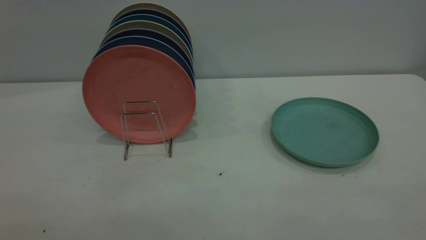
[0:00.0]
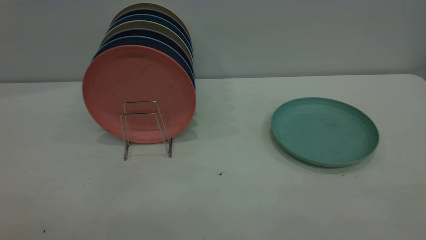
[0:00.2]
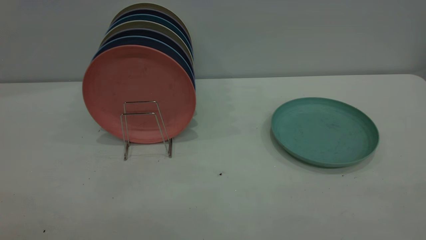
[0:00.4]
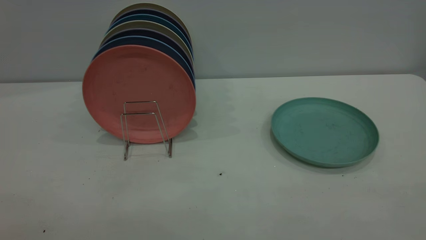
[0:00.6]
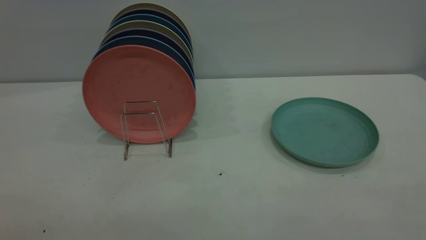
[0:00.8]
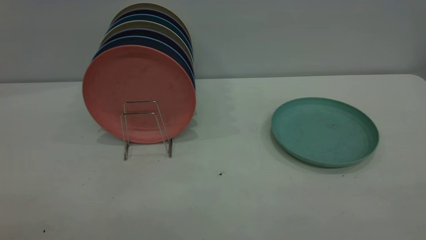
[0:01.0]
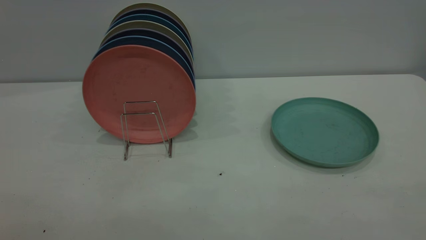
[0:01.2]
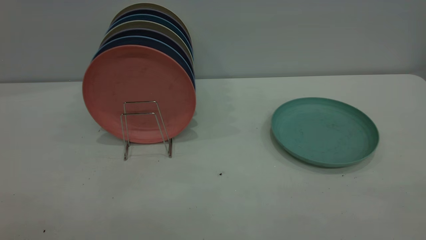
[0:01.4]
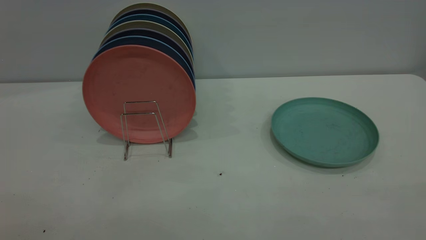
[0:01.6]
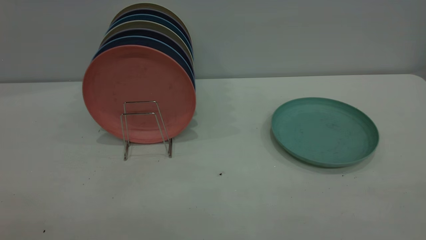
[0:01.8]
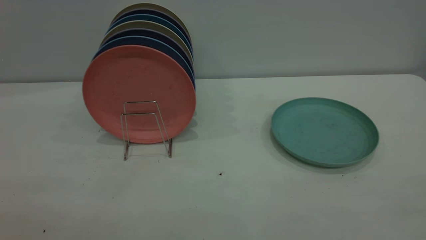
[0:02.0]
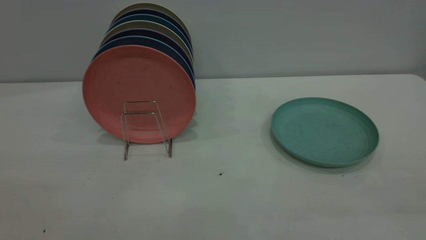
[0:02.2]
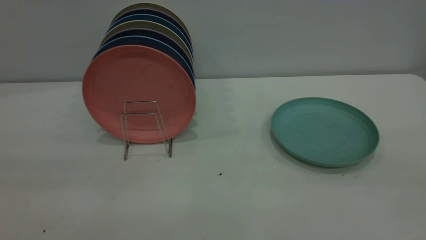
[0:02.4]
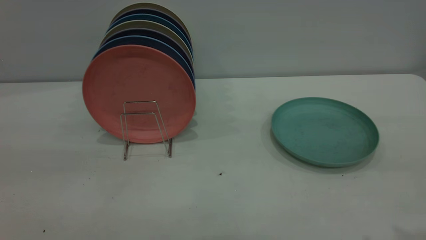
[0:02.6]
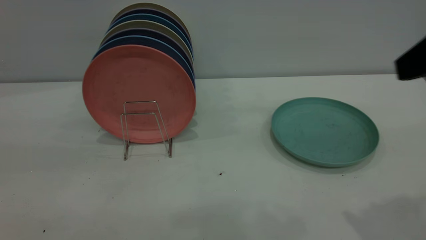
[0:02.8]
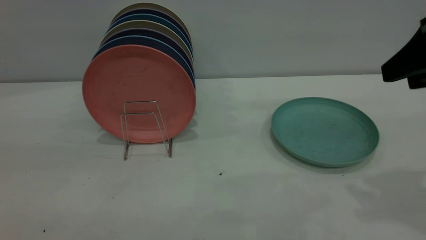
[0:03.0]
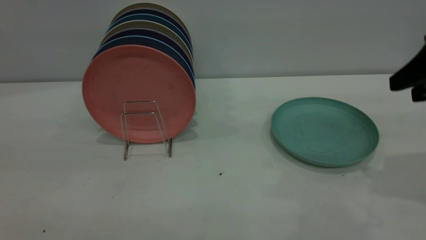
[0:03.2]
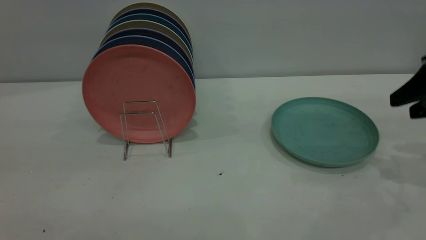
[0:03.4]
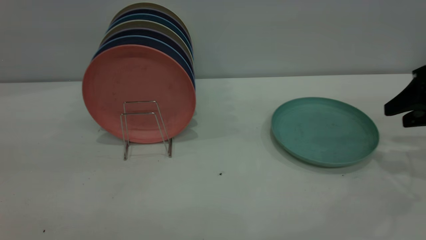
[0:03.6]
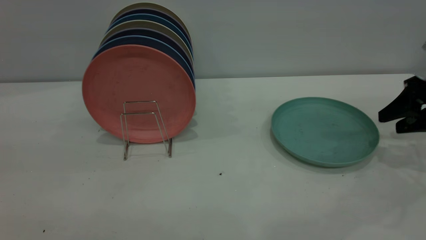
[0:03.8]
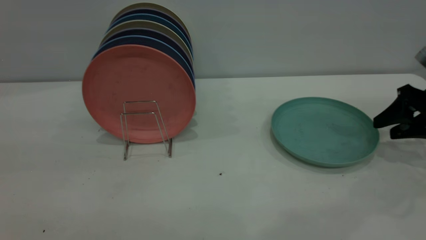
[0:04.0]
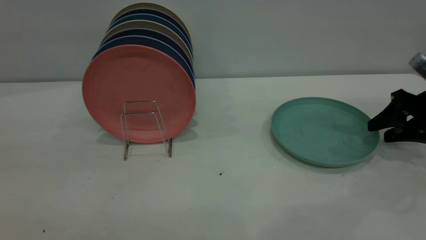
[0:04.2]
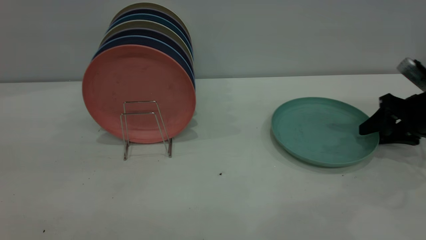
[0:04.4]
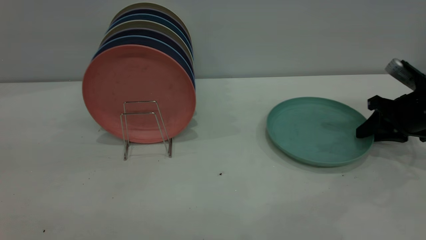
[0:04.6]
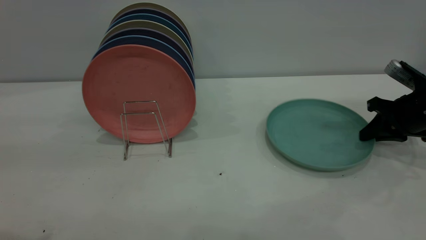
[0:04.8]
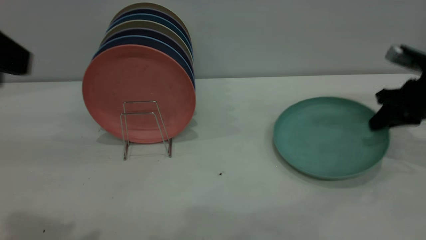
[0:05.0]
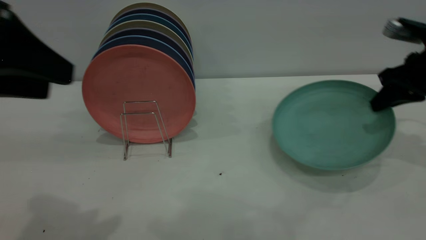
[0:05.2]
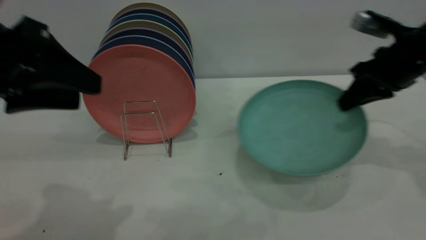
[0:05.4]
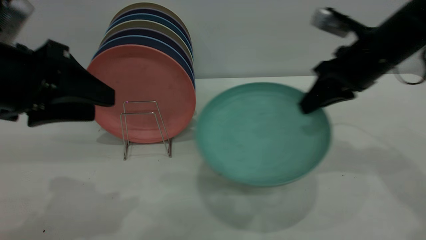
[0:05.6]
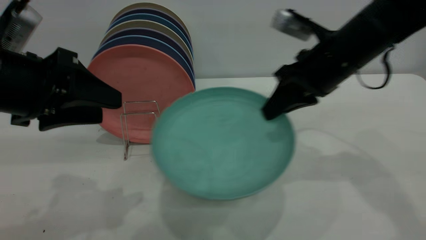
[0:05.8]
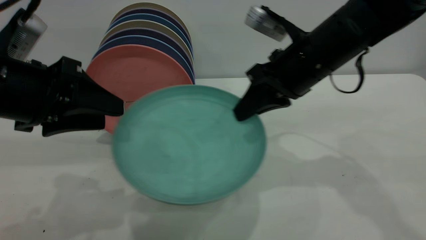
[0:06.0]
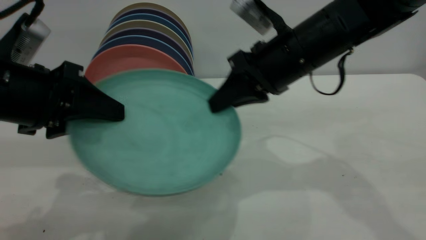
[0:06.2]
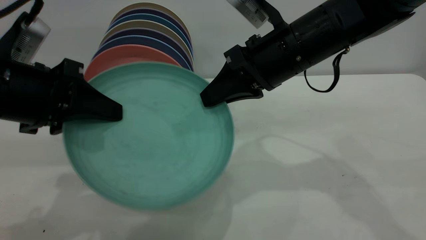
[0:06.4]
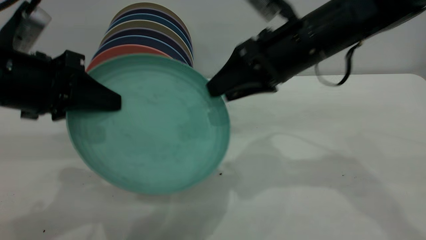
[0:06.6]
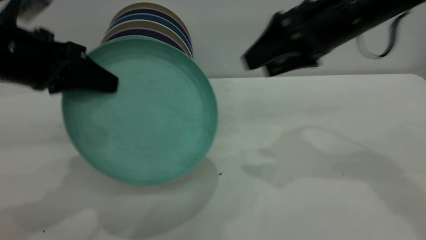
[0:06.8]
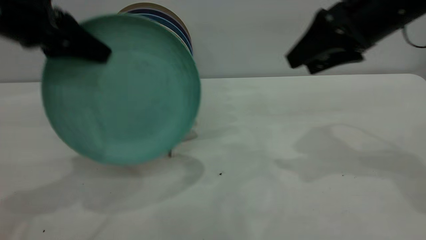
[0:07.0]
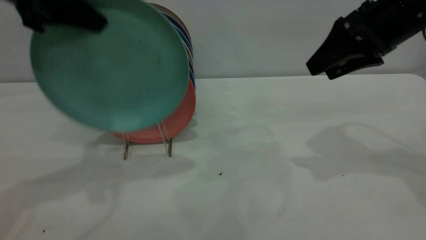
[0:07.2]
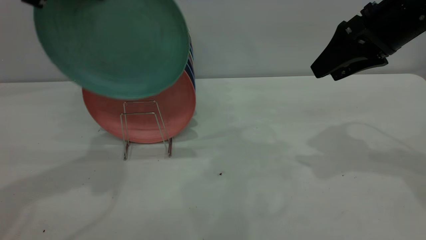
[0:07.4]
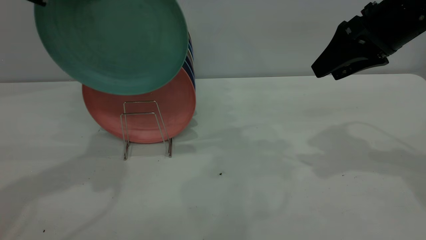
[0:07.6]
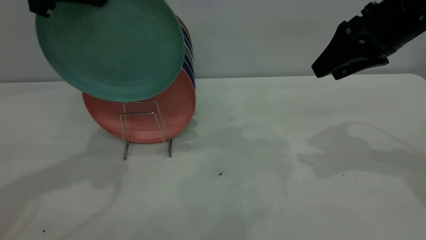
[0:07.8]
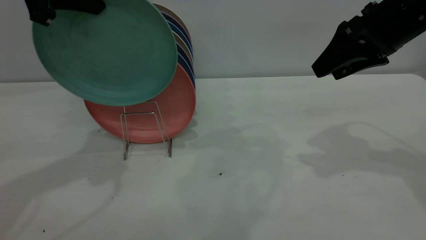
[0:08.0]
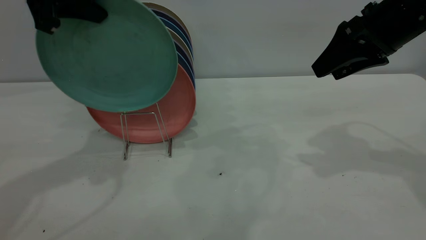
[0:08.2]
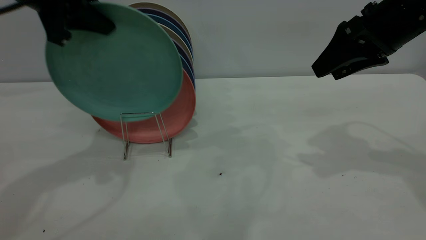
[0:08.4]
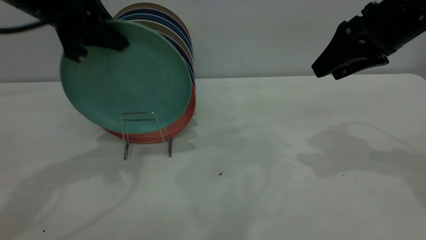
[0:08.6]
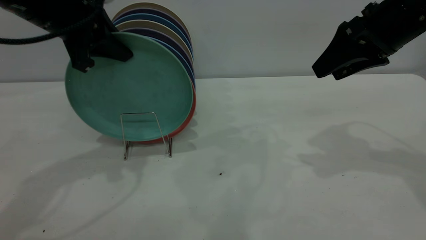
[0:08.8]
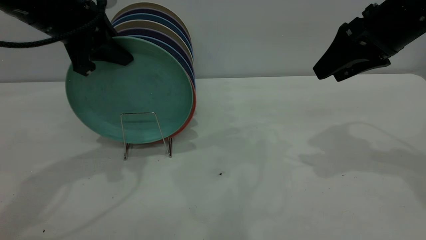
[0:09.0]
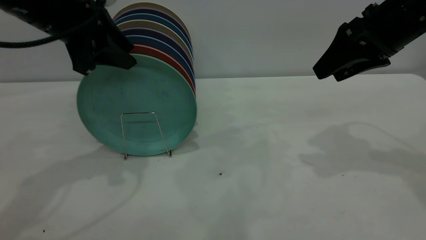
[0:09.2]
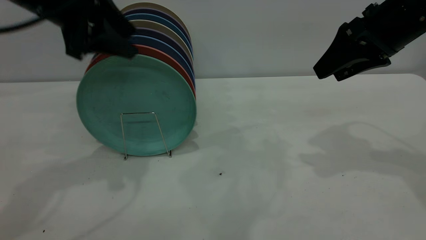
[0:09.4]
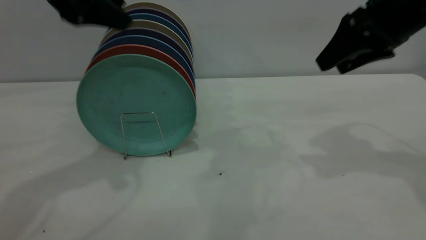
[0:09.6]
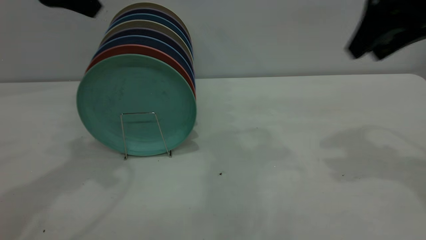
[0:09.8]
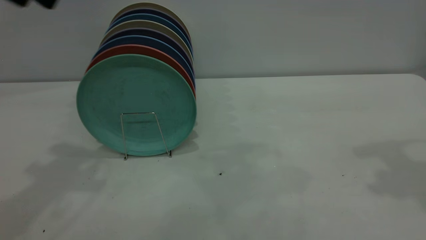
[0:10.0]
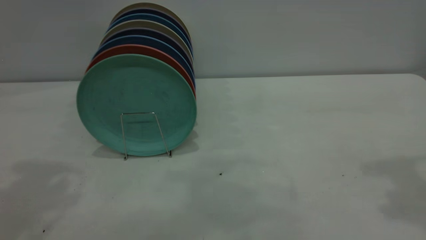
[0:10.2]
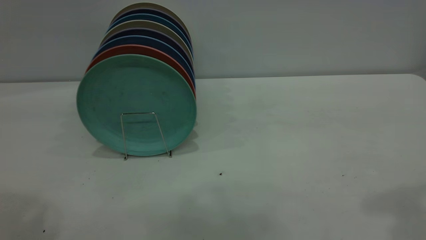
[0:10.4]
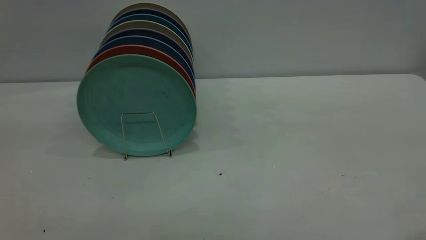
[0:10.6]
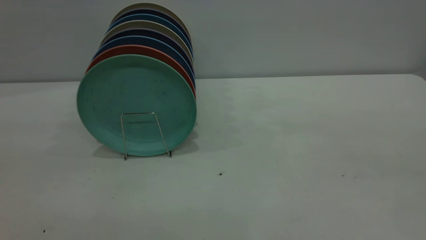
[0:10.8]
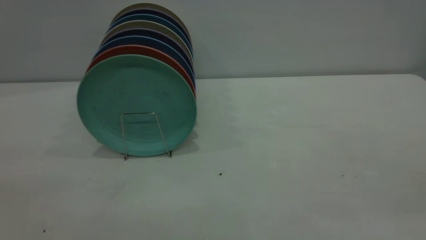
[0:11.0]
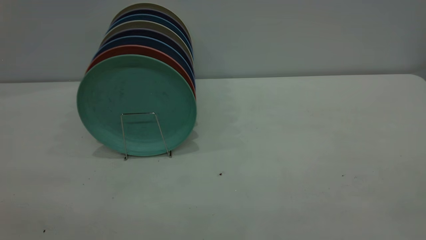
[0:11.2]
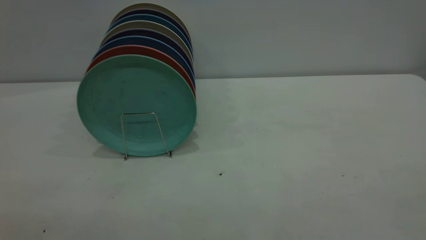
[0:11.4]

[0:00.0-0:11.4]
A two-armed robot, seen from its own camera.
Task of the whole recording: the right gripper grasp the green plate, the right gripper pass the green plate to the left gripper, and the left gripper place the green plate on the plate rack.
Step, 0:00.0 to 0:05.0: Pick up the plate with the right gripper.
Step, 0:05.4 to 0:06.6: Pass the plate from the right gripper to the left gripper.
Step, 0:06.8 to 0:09.4: Place the plate on the shelf.
0:00.0 to 0:01.4: Both grippers stay about where they are.
0:01.4 to 0:02.8: The right gripper goes about 25 cm forward.
0:02.8 to 0:04.2: The right gripper goes some 30 cm downward, forward and to the right.
0:04.2 to 0:05.6: The right gripper is displaced to the left and upward by approximately 20 cm, and closes, while the left gripper heads downward and forward, covering roughly 20 cm.
0:05.6 to 0:07.2: The left gripper goes some 15 cm upward and forward, and closes its fingers. Meanwhile the right gripper is displaced upward by approximately 5 cm, moves approximately 10 cm to the left and comes back, and opens up.
0:07.2 to 0:08.6: The left gripper moves downward, some 5 cm.
0:08.6 to 0:10.0: Both grippers travel together upward and backward, some 15 cm. The left gripper opens up.
